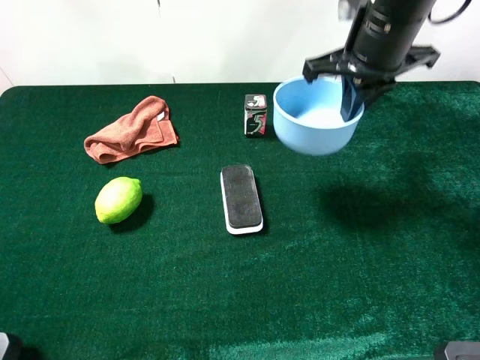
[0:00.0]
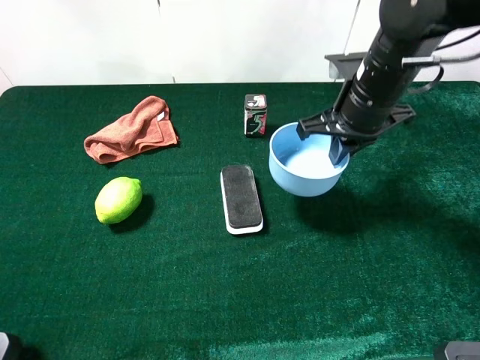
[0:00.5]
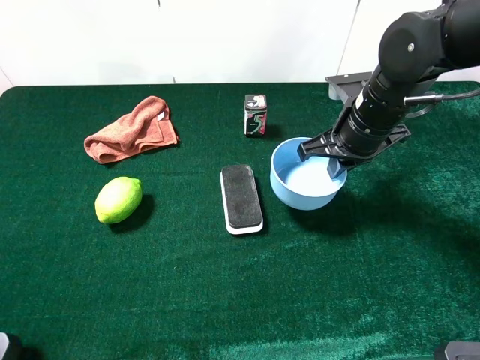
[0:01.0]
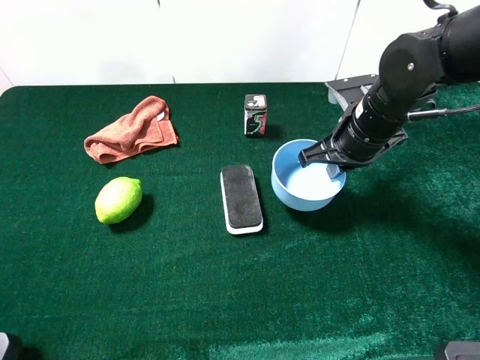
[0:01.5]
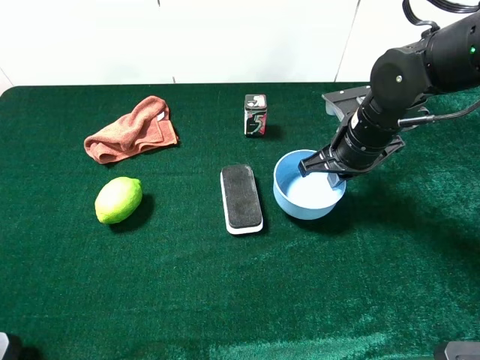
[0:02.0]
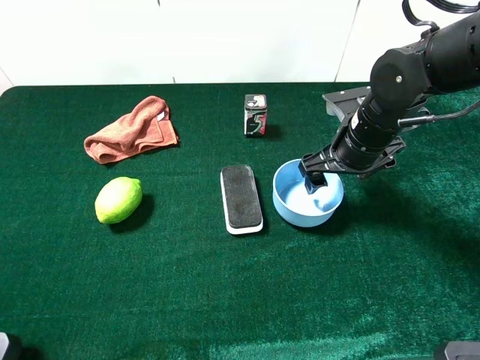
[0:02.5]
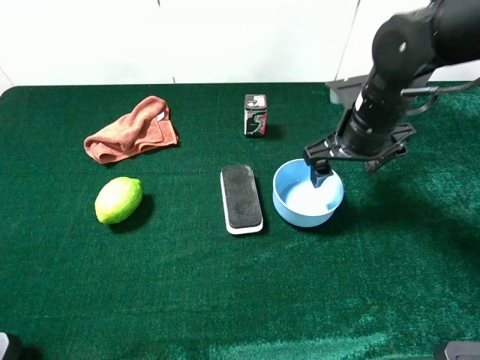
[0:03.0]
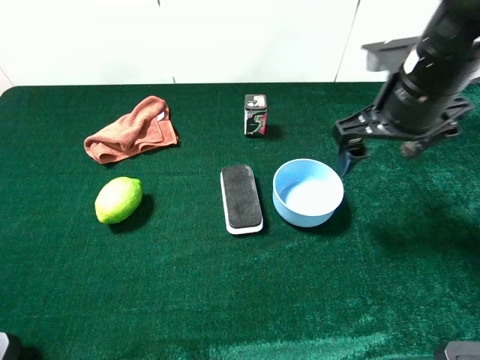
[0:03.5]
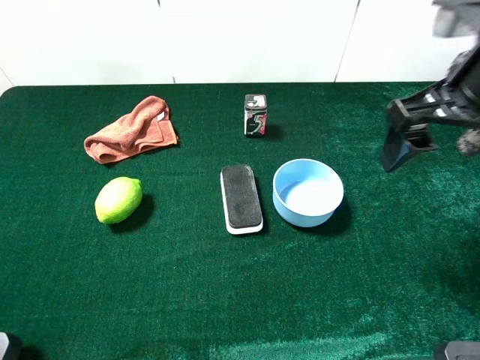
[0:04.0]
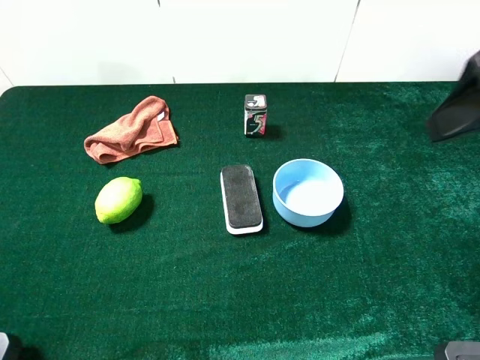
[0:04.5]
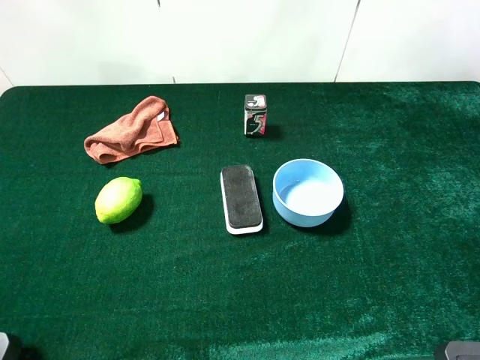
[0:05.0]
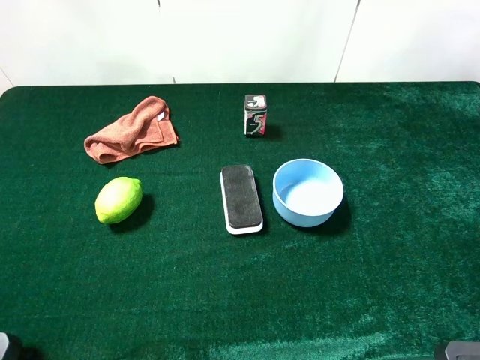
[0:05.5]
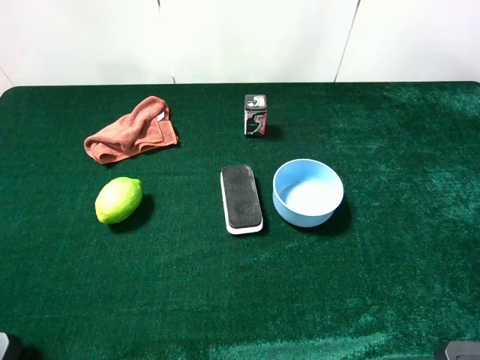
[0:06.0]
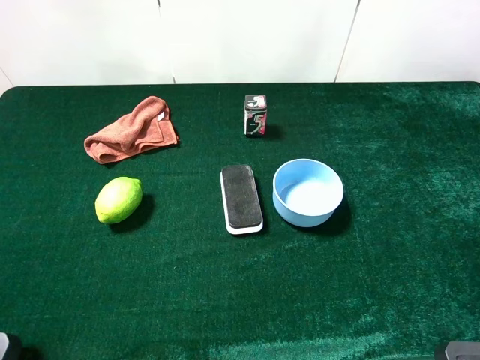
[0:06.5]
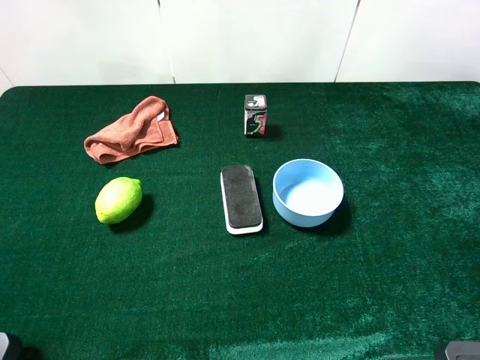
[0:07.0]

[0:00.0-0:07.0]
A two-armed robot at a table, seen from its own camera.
Task of the whole recording: the gripper move the object.
Step, 0:00.0 to 0:02.5: Grasp the blue bowl with the right gripper.
0:00.0 to 0:02.0: The right gripper travels downward by approximately 10 cm.
0:02.0 to 0:03.5: The right gripper moves upward, roughly 10 cm, and opens up.
0:03.5 to 0:05.0: The right gripper is displaced backward, upward and to the right by some 25 cm.
